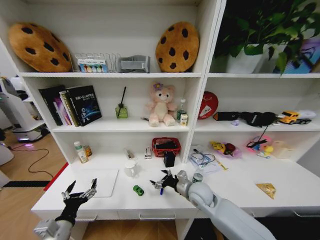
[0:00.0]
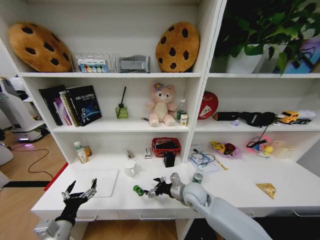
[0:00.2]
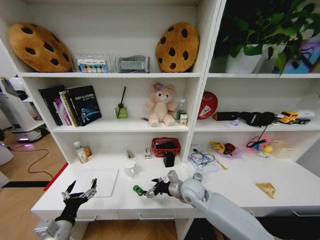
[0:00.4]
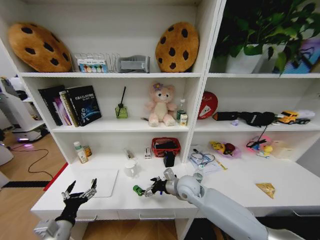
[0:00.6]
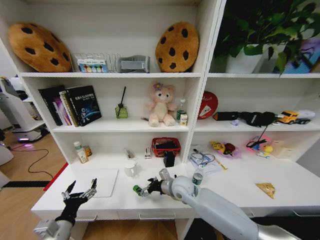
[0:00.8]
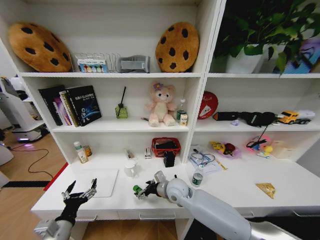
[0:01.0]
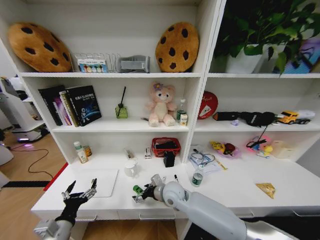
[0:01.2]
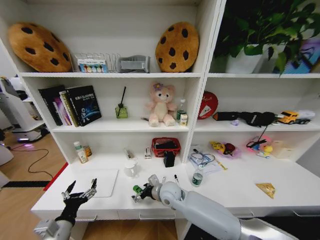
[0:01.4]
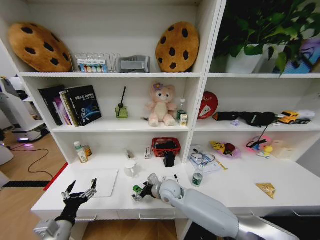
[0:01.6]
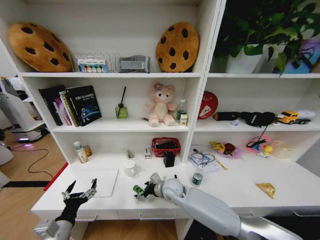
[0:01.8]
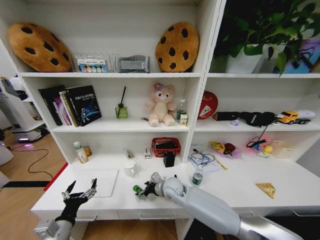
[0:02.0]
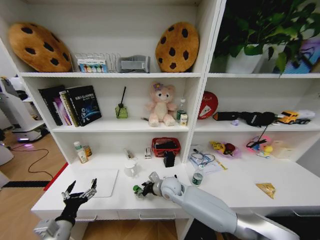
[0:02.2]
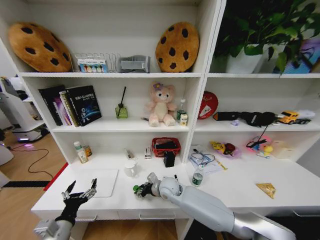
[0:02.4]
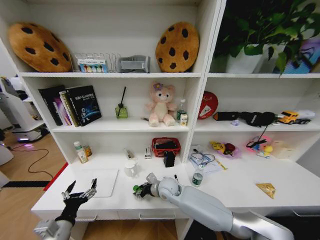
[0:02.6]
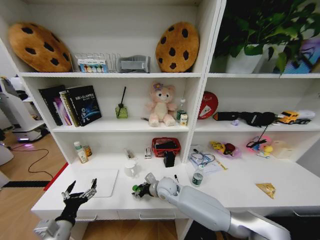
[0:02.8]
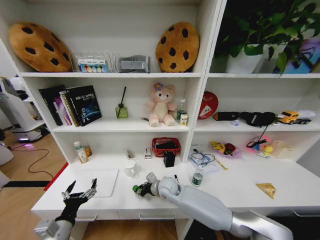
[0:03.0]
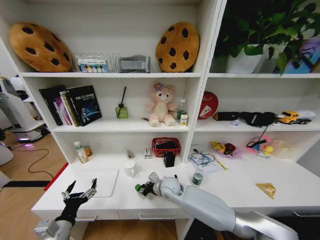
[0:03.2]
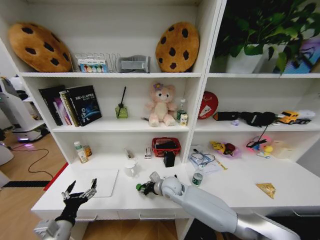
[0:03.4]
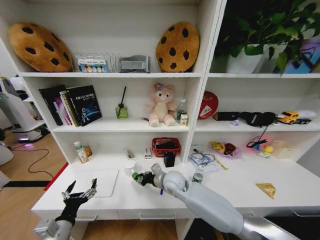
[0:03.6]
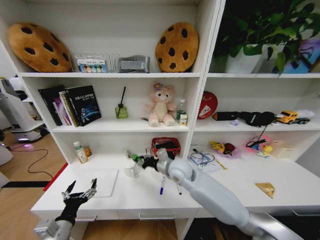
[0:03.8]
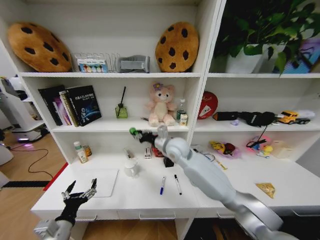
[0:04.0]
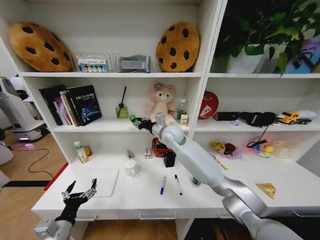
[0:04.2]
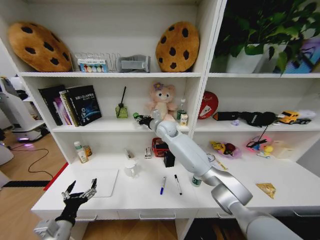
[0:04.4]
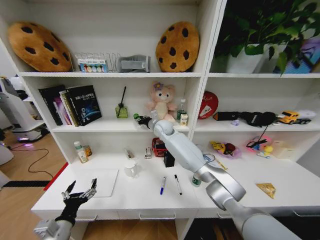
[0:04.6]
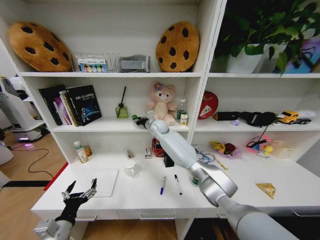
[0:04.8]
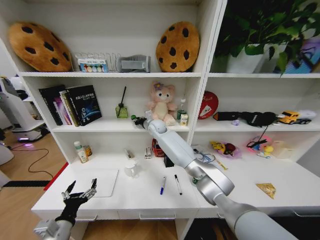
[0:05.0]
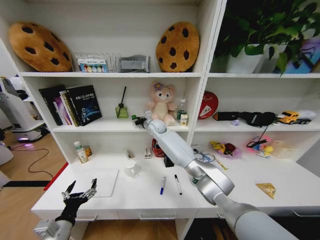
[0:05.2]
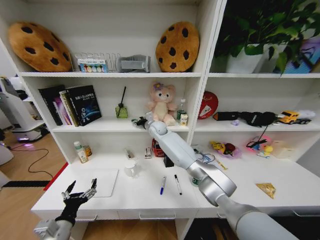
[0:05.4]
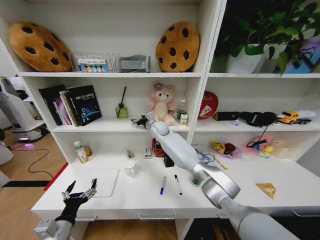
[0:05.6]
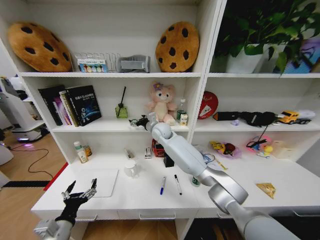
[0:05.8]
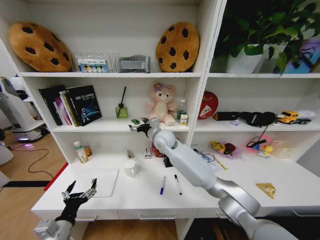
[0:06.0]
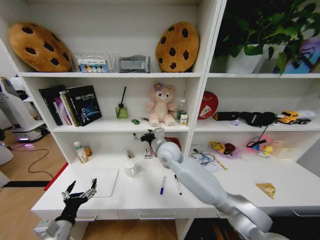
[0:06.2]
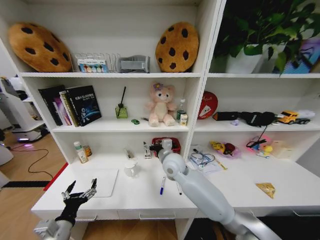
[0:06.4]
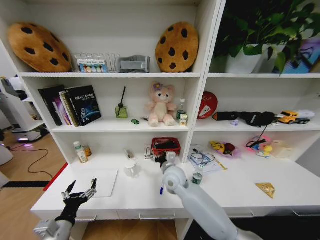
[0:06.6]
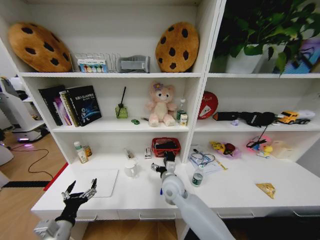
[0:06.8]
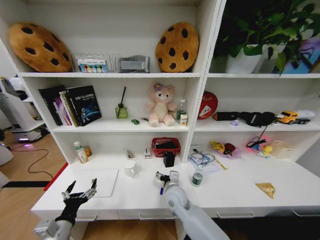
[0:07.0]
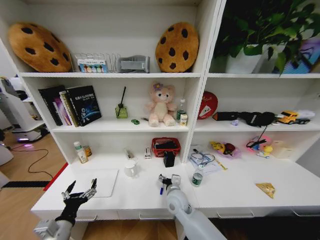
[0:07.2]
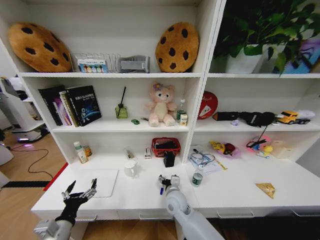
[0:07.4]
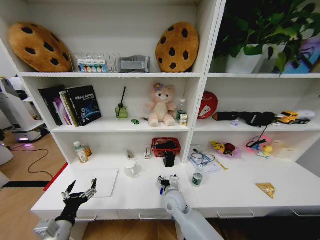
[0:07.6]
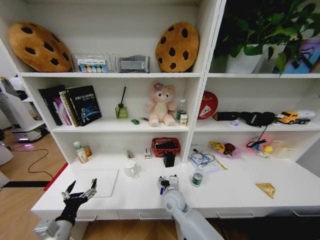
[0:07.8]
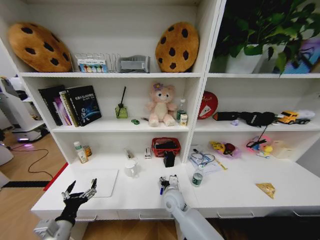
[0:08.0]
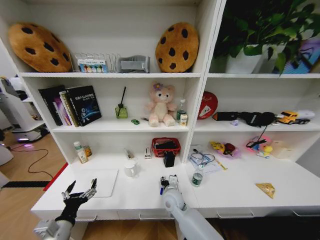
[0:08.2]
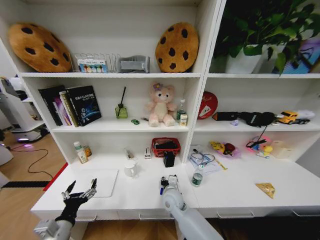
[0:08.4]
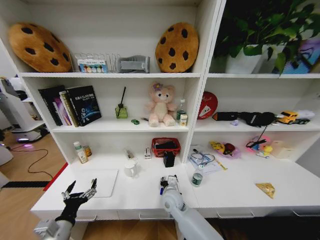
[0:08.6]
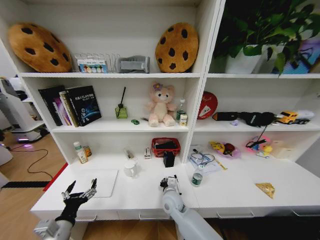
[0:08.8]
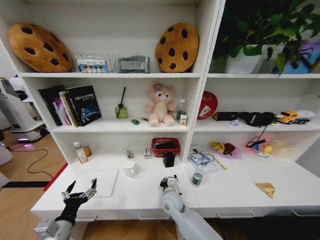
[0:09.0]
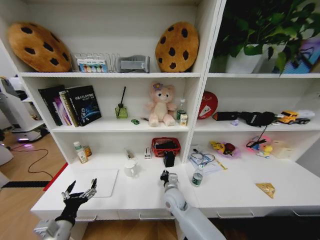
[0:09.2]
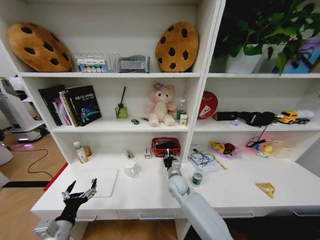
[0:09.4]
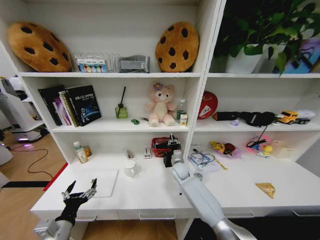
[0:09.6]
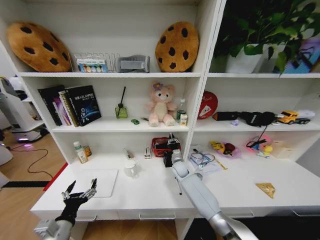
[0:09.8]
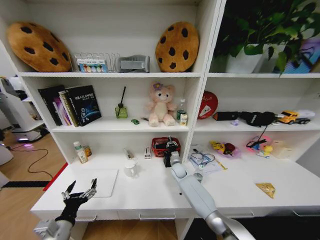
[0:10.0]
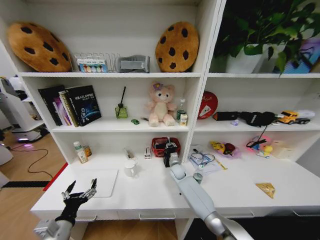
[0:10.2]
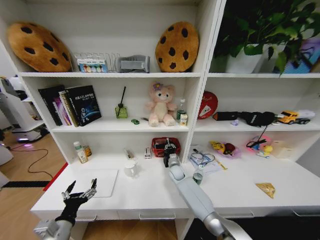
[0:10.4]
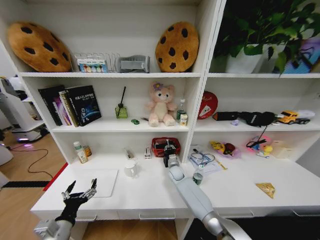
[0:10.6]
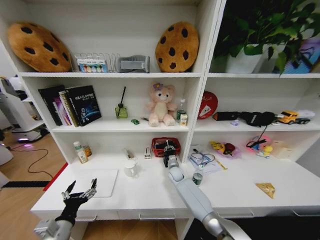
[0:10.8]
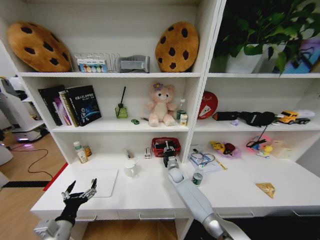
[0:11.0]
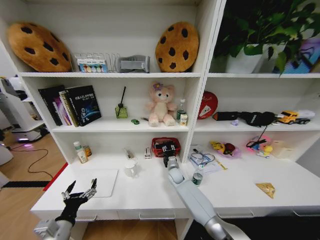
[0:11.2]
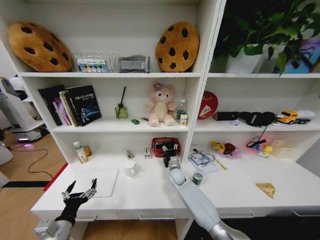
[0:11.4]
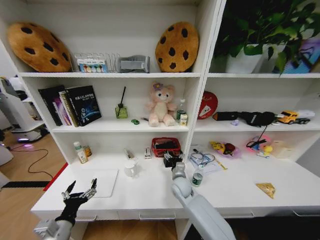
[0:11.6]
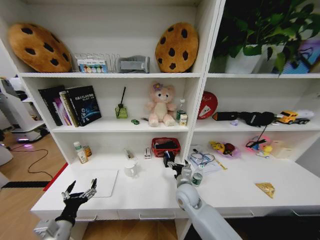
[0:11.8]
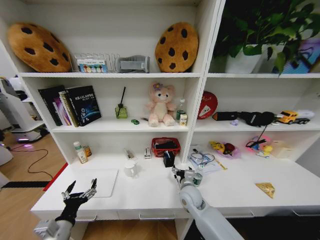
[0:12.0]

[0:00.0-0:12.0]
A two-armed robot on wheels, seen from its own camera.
Task of the whole recording: Organize the objects on the table.
0:00.0 to 0:01.6: The right gripper heads to the left, covering roughly 15 cm.
0:01.6 to 0:03.0: The right gripper closes its fingers.
0:03.0 to 0:04.4: The right gripper goes some 30 cm upward and forward.
0:04.4 to 0:06.0: The right gripper goes some 5 cm backward, and opens up.
0:06.0 to 0:07.6: The right gripper heads downward and backward, covering roughly 30 cm.
0:07.6 to 0:09.0: The right gripper closes.
0:09.0 to 0:10.4: The right gripper heads forward, covering approximately 15 cm.
0:10.4 to 0:12.0: The right gripper goes approximately 15 cm backward, and opens.

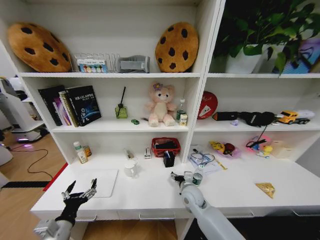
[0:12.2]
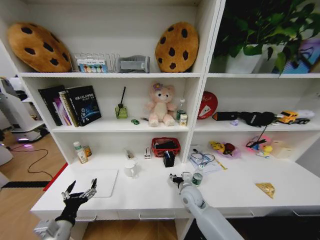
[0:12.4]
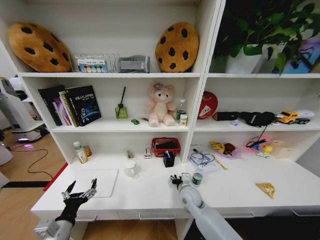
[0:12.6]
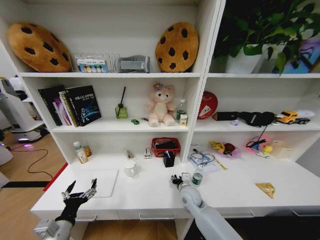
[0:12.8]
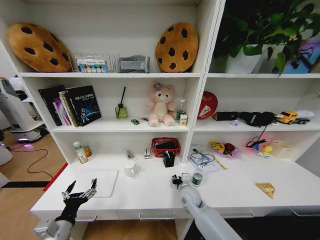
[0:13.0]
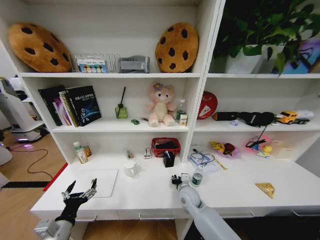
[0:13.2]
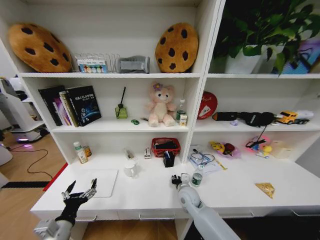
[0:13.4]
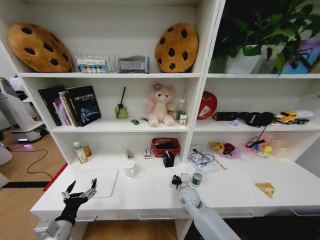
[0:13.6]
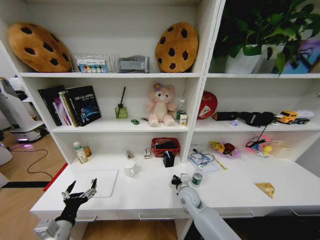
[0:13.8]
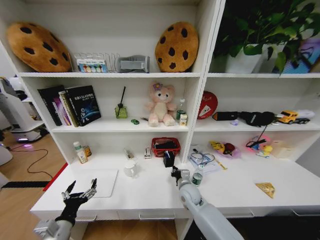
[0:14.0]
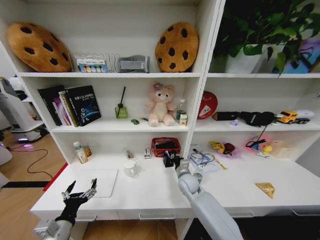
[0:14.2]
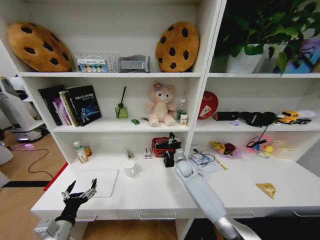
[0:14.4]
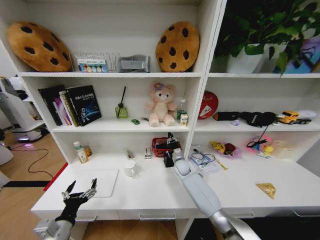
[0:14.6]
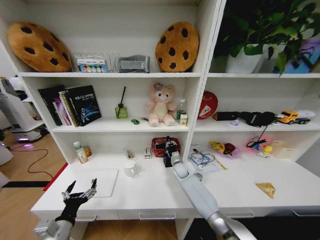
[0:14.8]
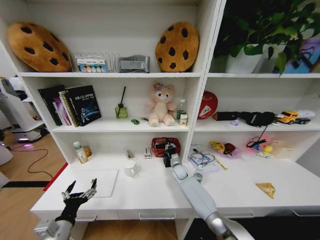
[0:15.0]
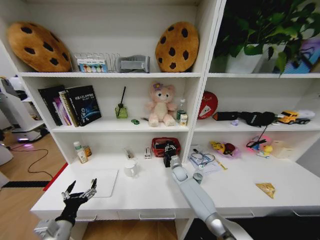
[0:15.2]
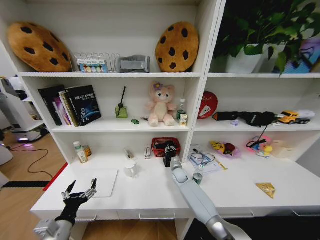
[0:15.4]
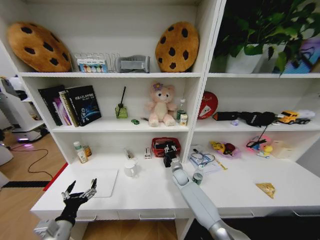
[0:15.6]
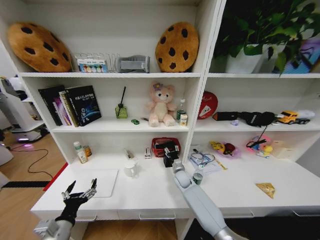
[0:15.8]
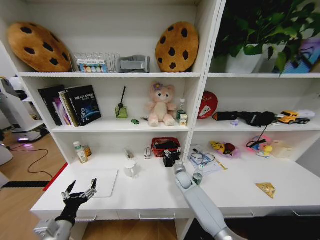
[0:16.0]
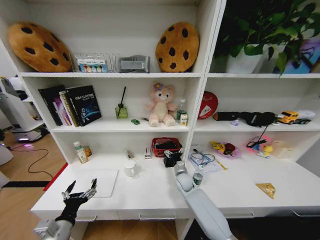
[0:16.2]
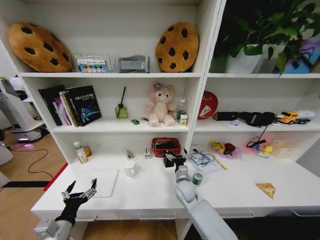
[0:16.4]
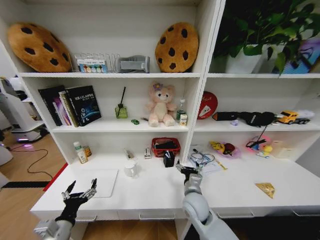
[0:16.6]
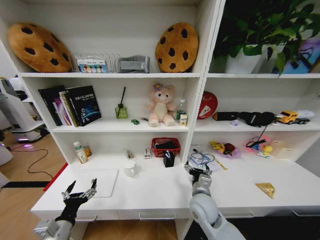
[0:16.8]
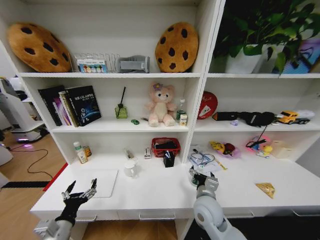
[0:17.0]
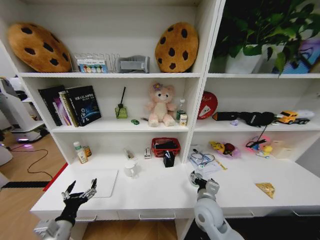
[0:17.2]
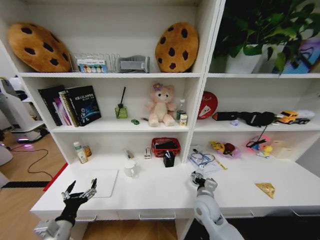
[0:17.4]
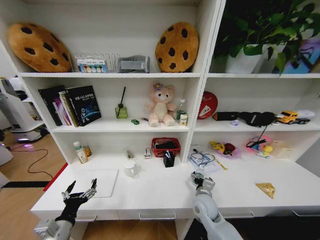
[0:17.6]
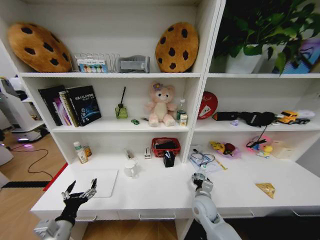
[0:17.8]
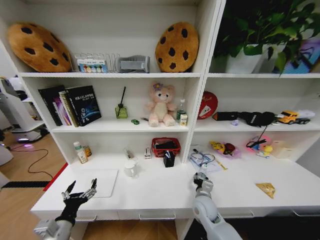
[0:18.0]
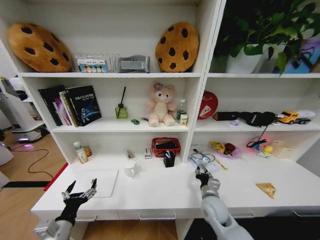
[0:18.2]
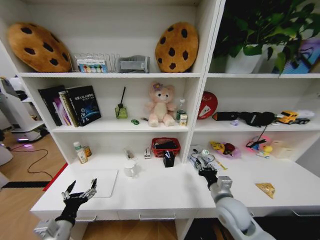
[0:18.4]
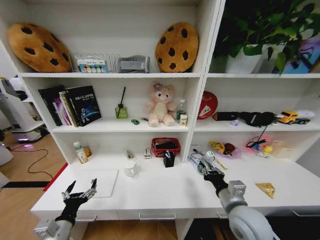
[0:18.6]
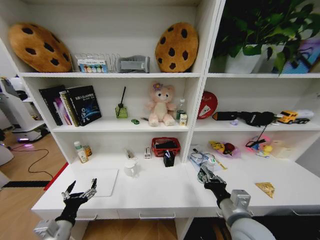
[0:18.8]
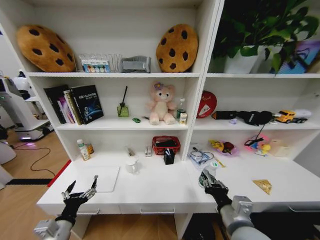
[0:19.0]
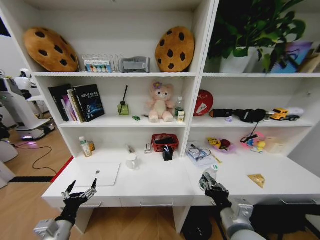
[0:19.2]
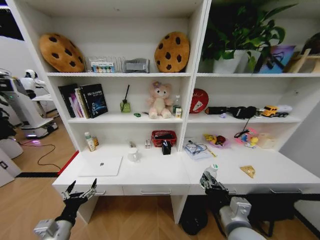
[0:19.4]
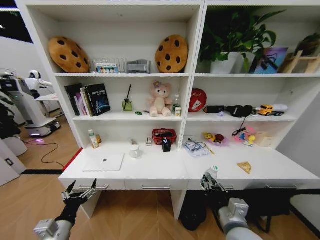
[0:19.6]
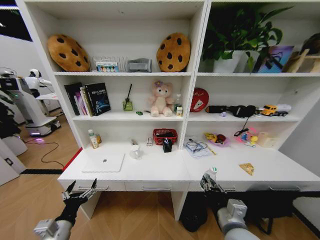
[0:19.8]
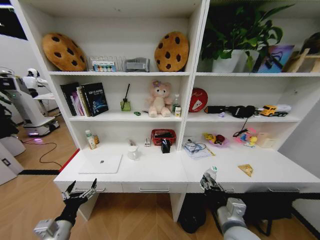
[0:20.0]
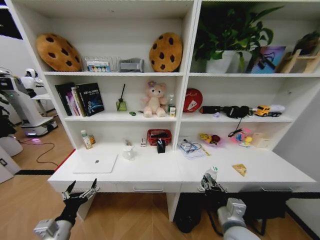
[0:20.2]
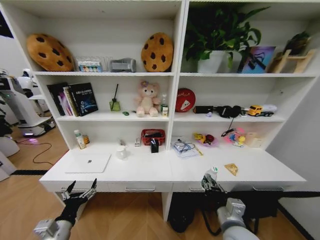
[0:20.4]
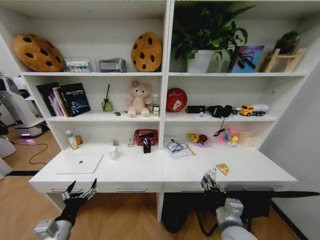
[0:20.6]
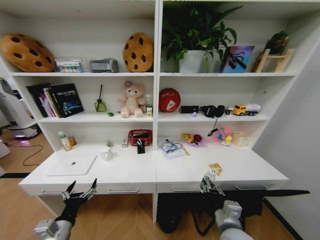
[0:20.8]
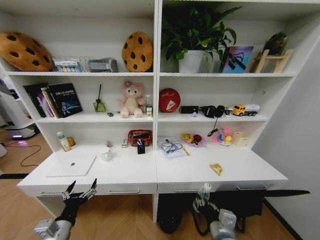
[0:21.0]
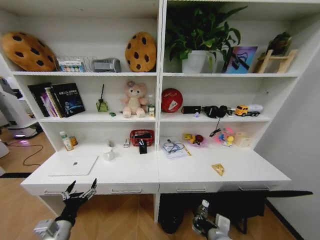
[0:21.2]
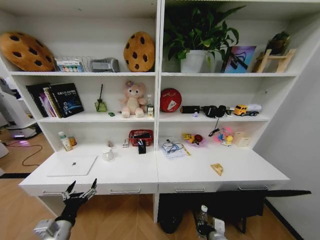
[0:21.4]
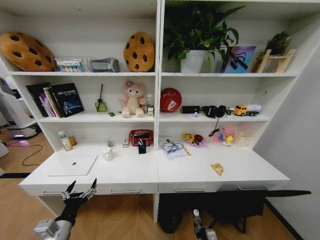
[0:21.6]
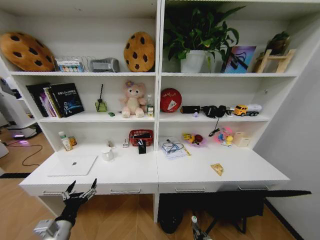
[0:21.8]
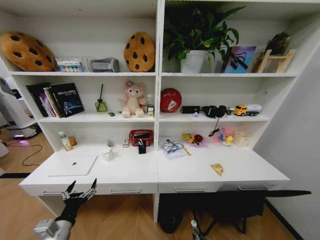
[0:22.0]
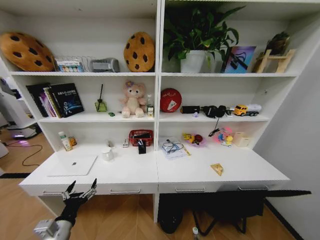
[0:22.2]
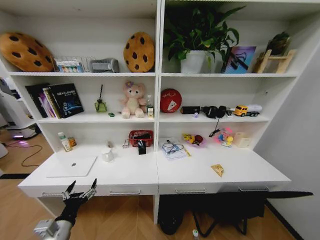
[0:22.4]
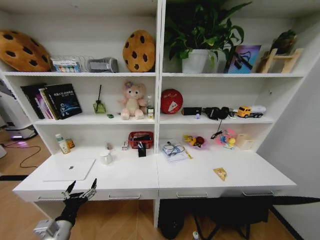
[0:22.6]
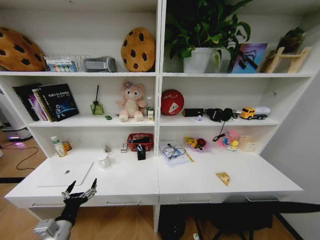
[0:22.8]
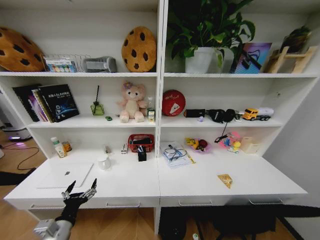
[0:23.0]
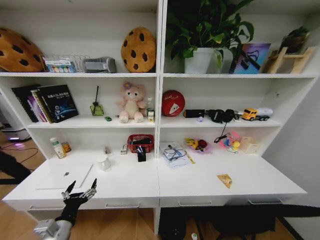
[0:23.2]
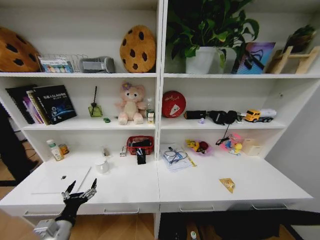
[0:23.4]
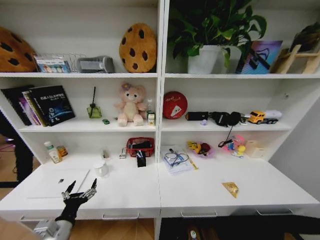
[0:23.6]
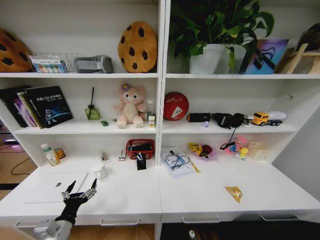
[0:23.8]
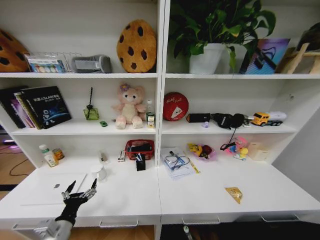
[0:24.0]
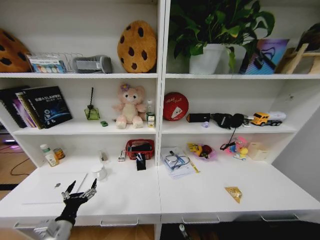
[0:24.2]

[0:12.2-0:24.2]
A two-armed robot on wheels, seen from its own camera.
Task of the whole recording: Organize the objects on the table.
0:12.2 to 0:13.8: The right gripper closes up.
0:13.8 to 0:15.2: The right gripper shifts some 15 cm forward.
0:15.2 to 0:16.6: The right gripper travels backward and upward by about 20 cm, and opens.
0:16.6 to 0:18.2: The right gripper travels to the right by some 10 cm, and closes.
0:18.2 to 0:19.8: The right gripper travels backward and upward by some 15 cm.
0:19.8 to 0:21.2: The right gripper is displaced downward by roughly 10 cm.
0:21.2 to 0:22.6: The right gripper heads downward, covering about 30 cm.
0:22.6 to 0:24.2: The right gripper goes some 5 cm downward.
